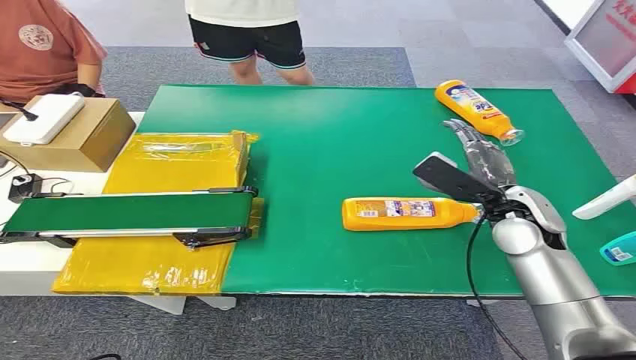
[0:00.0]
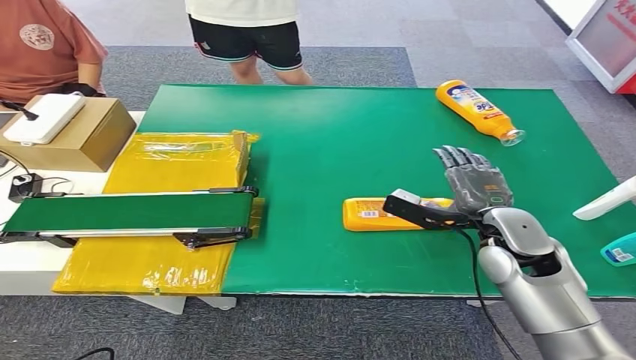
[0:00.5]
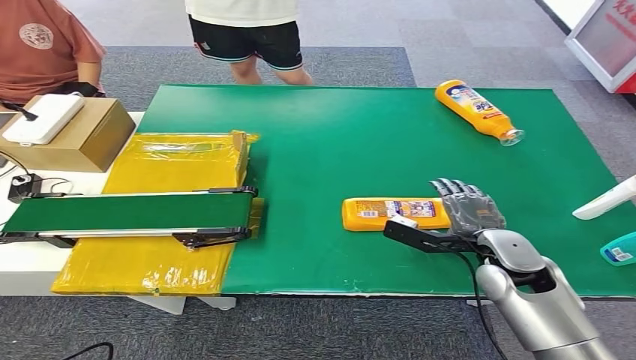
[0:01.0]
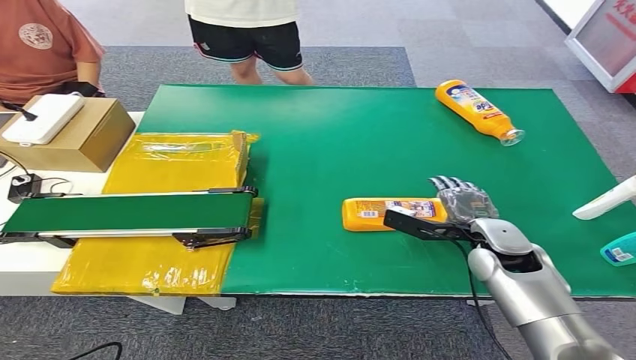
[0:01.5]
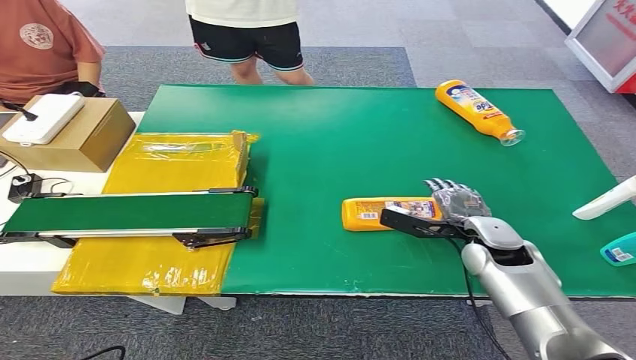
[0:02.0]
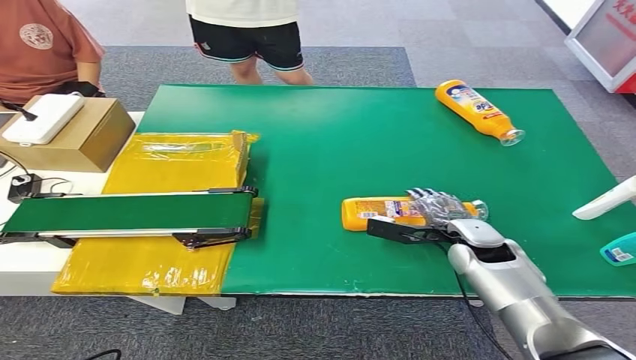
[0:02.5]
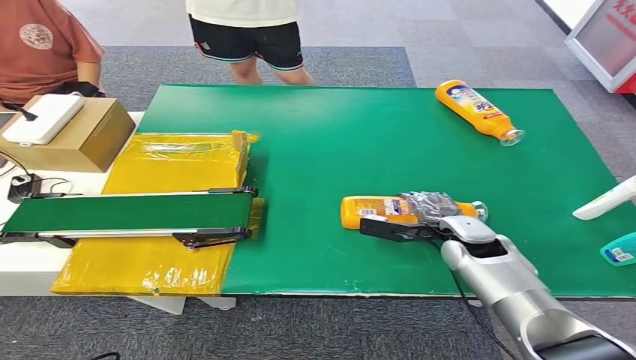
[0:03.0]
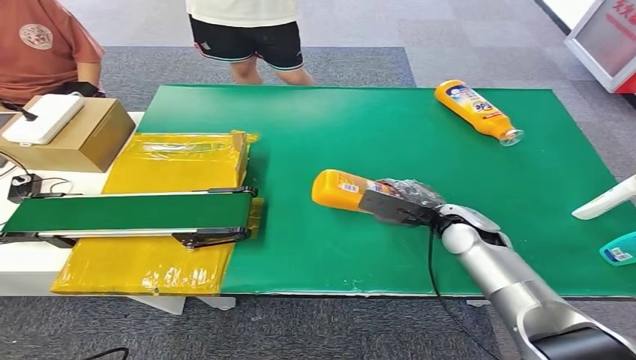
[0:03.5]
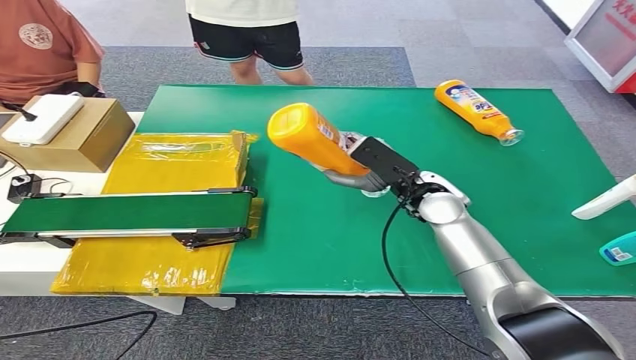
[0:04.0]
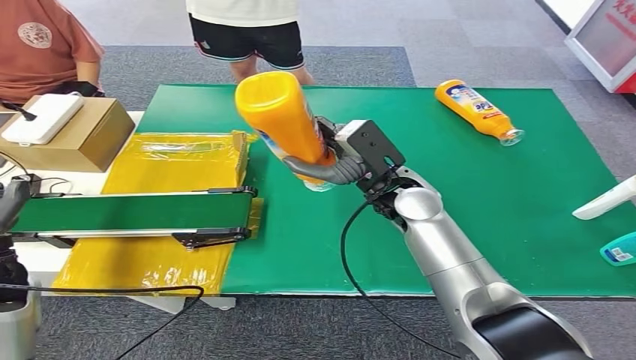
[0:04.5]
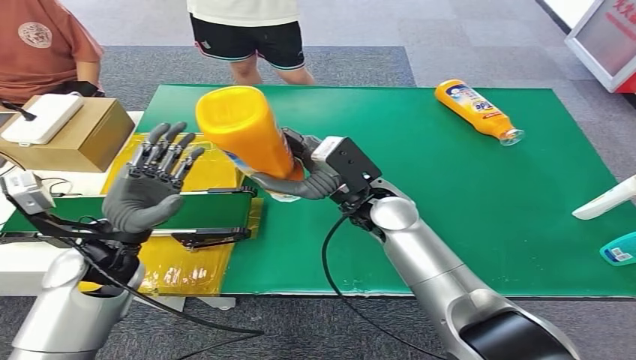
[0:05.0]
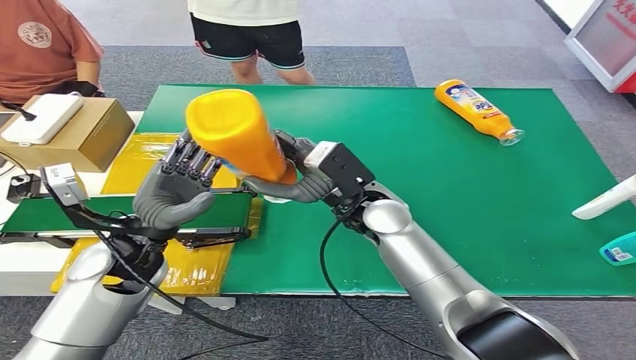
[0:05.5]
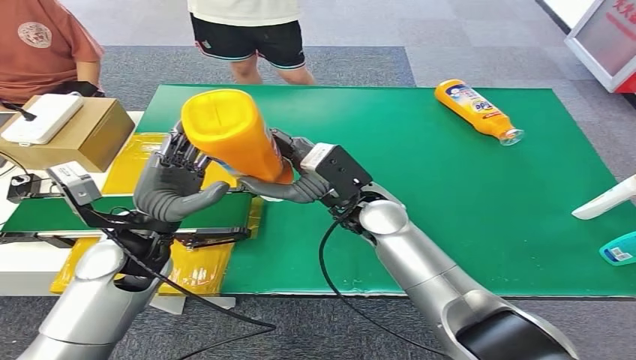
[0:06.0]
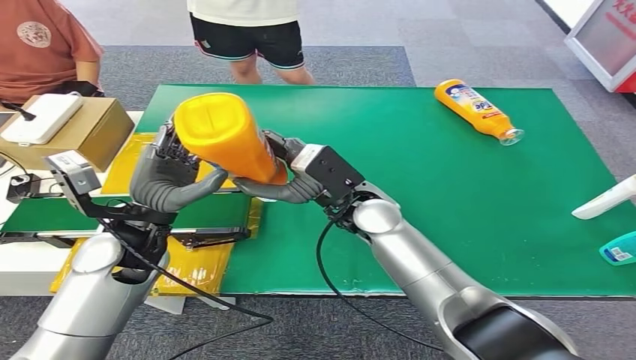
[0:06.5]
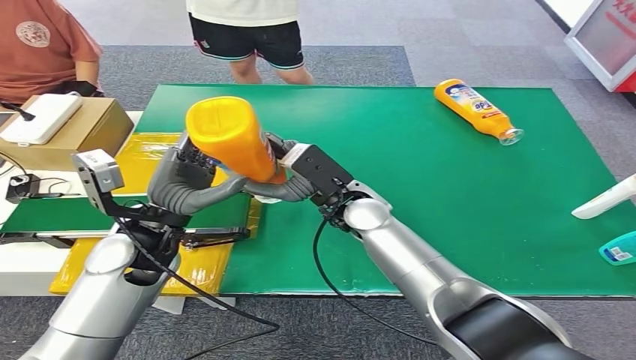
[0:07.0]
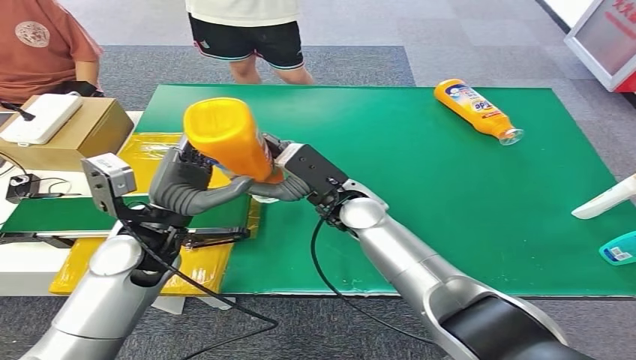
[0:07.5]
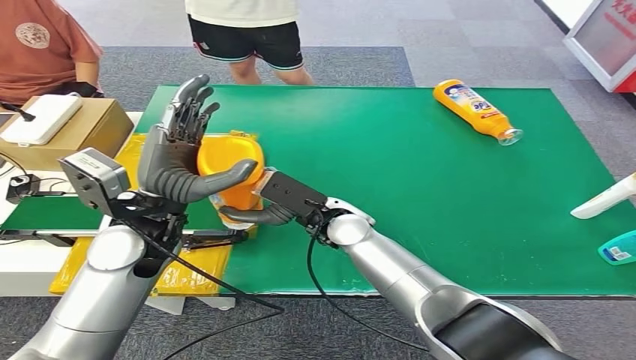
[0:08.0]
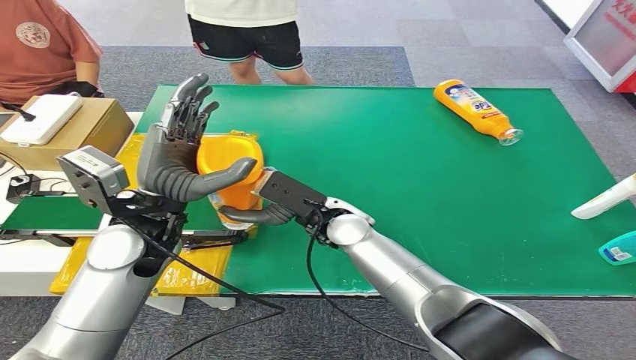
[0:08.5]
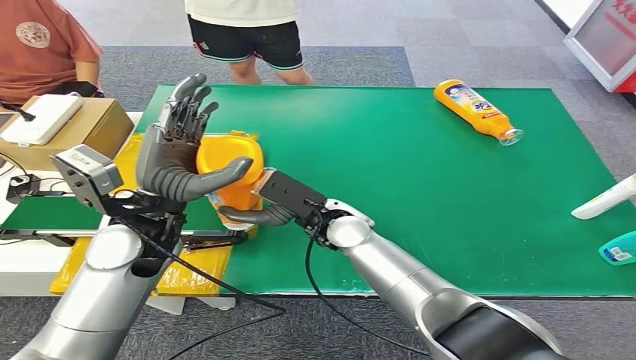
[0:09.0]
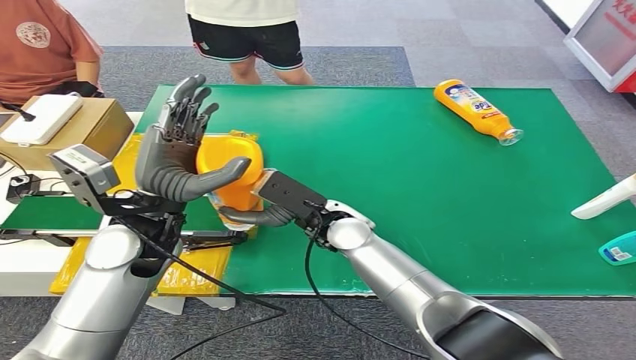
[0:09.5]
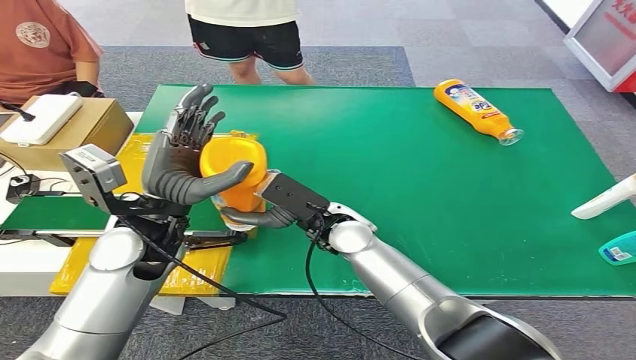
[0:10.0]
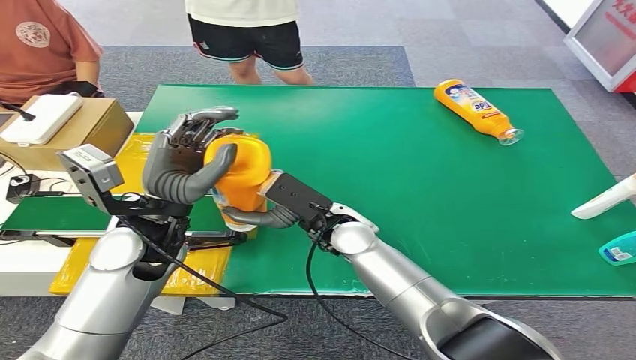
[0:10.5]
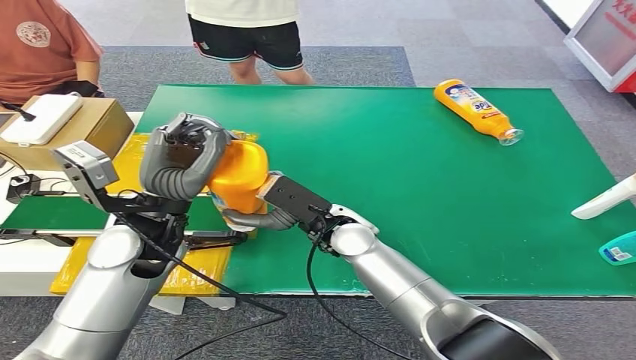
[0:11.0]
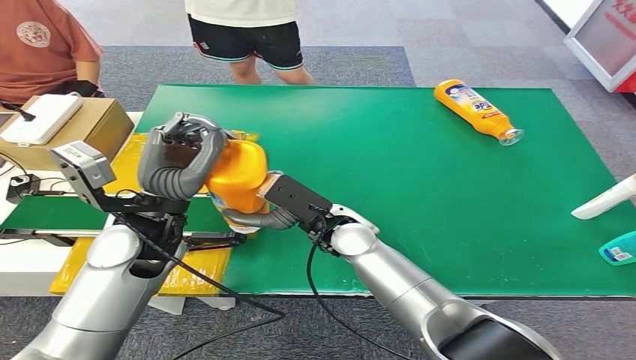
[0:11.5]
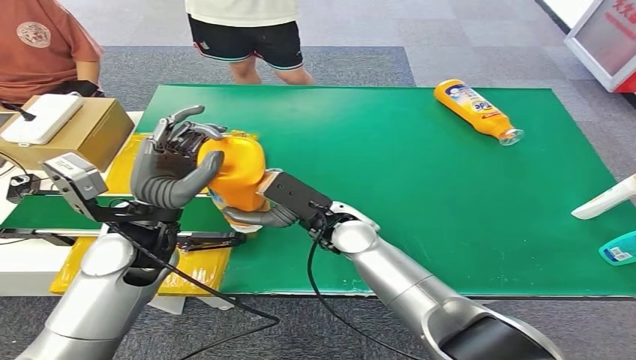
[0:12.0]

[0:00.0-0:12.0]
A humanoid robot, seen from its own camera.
Step, 0:00.0 to 0:04.0: Pick up the bottle from the table.
0:02.0 to 0:04.0: The left hand is displaced forward by roughly 10 cm, while the right hand is displaced to the left, upward and forward by some 15 cm.
0:08.0 to 0:12.0: The hands stay close to where they were, moving slightly.

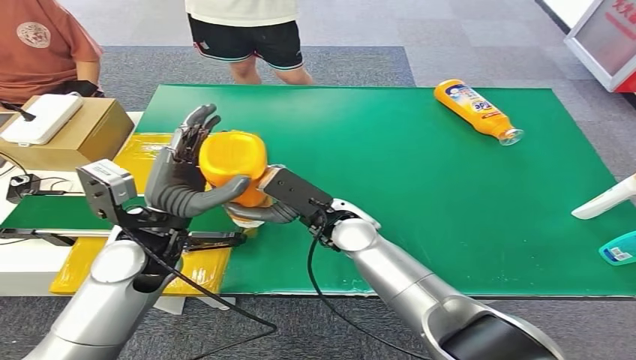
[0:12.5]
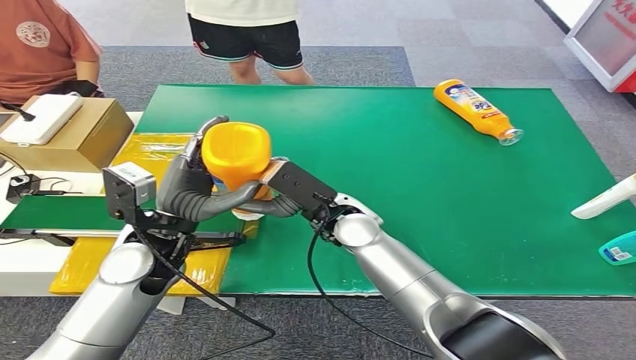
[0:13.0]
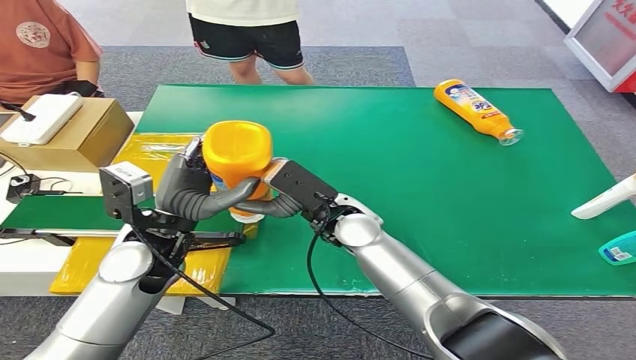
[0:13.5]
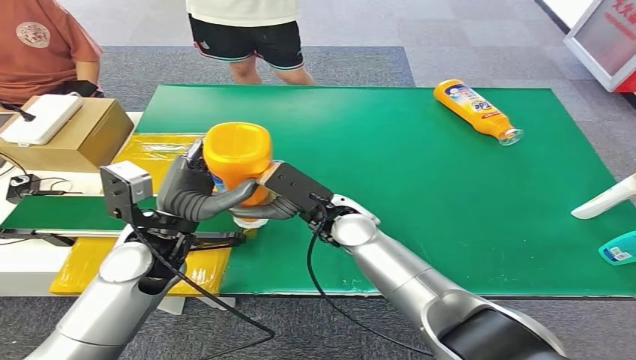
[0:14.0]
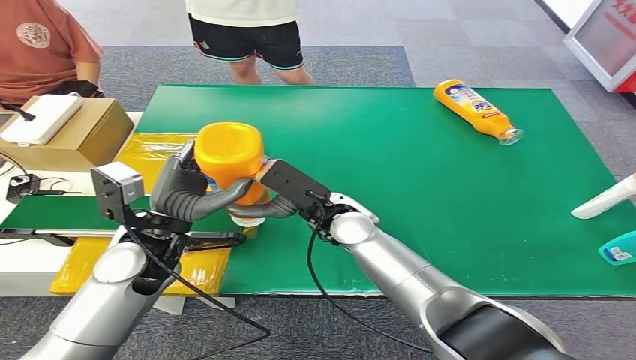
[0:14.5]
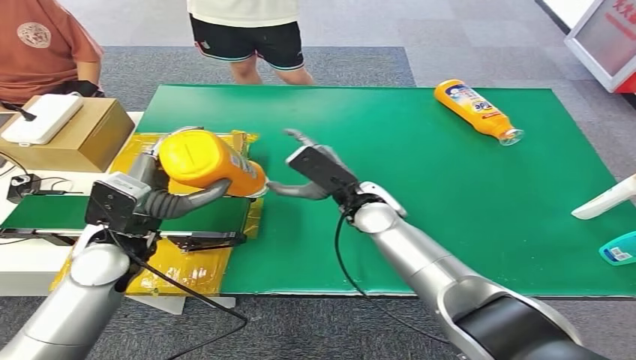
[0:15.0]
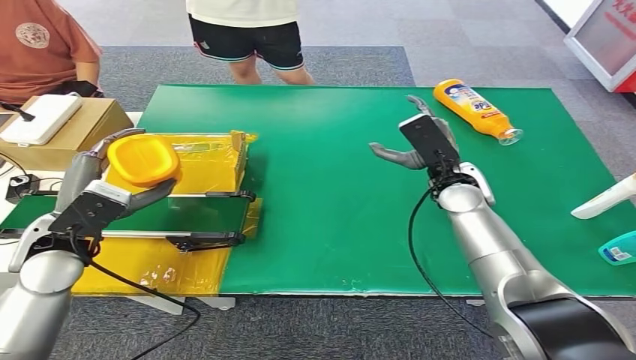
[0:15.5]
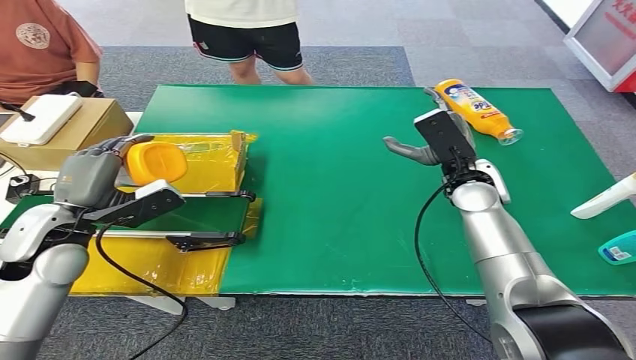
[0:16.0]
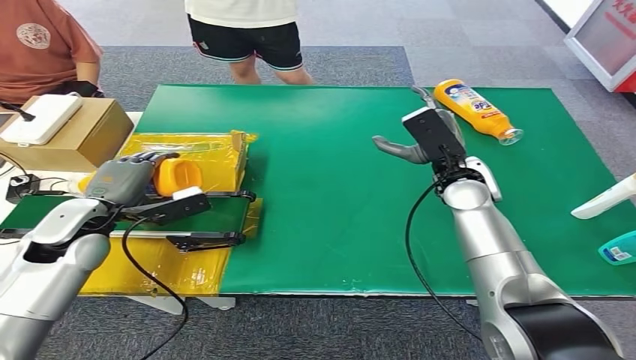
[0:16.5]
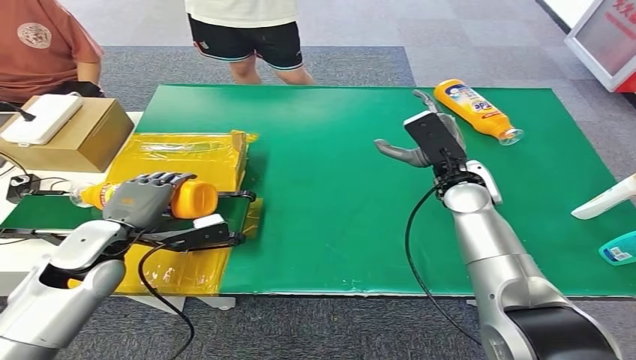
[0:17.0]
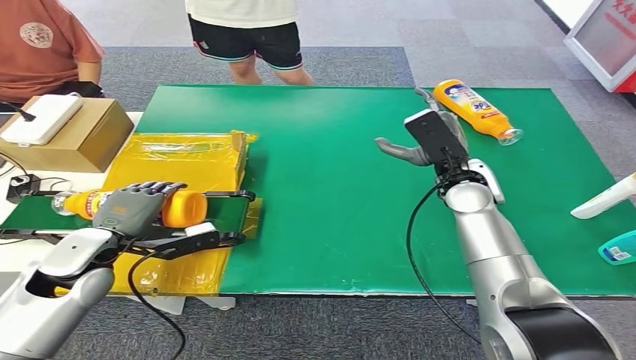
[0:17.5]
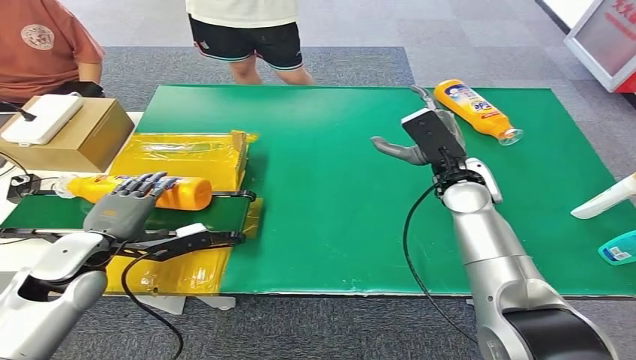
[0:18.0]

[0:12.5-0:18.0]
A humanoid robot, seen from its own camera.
Step, 0:12.5 to 0:18.0: Turn the bottle to the front side.
0:12.5 to 0:14.5: The hands move only a little.
0:16.0 to 0:18.0: The left hand is displaced downward by roughly 5 cm.
